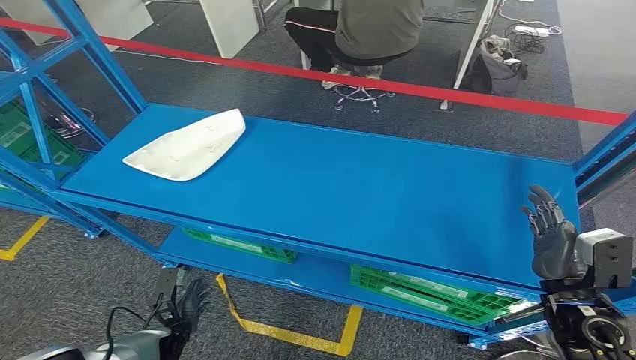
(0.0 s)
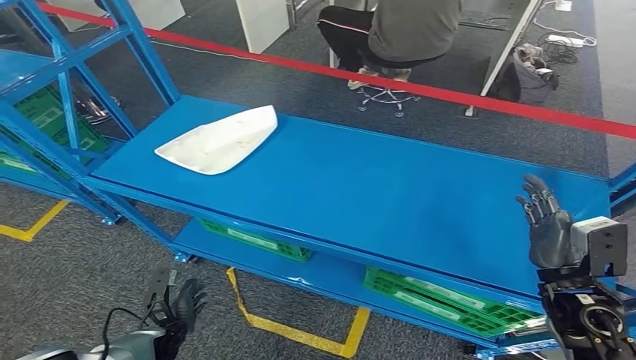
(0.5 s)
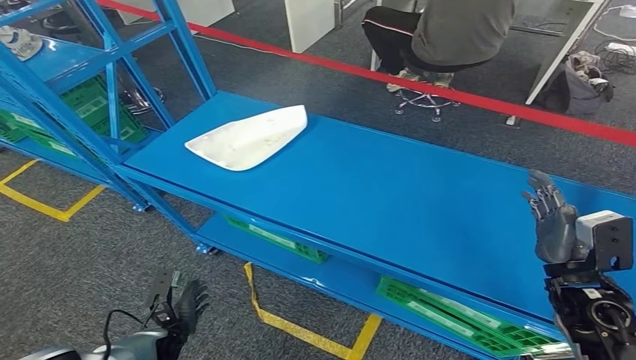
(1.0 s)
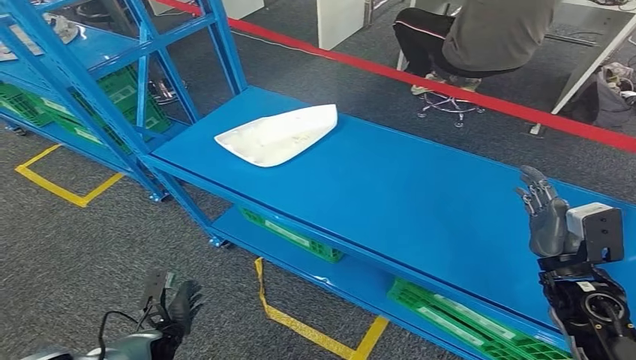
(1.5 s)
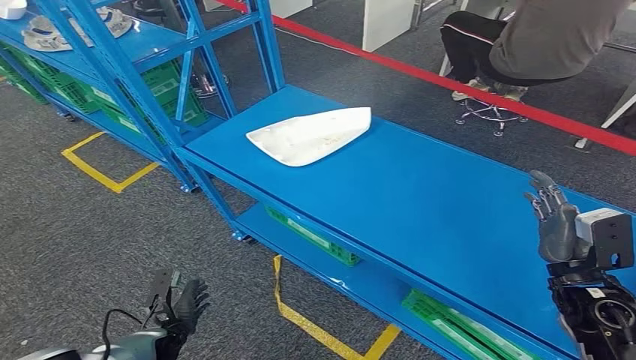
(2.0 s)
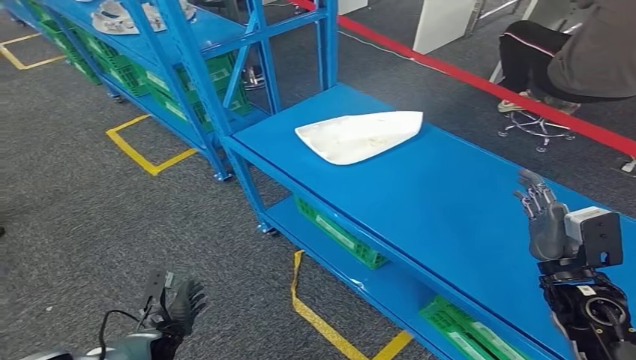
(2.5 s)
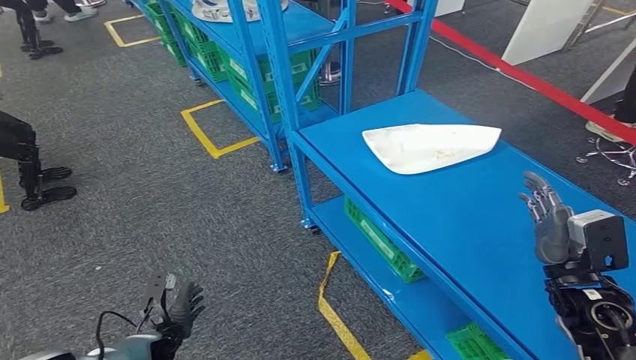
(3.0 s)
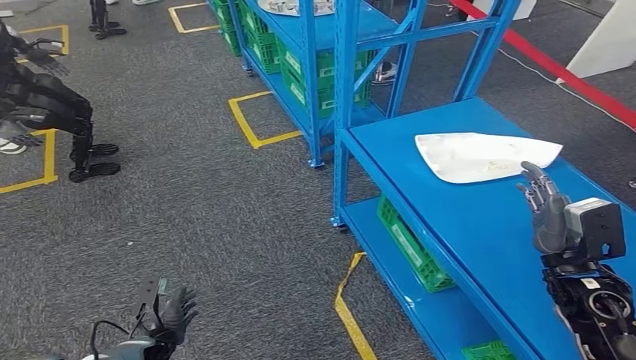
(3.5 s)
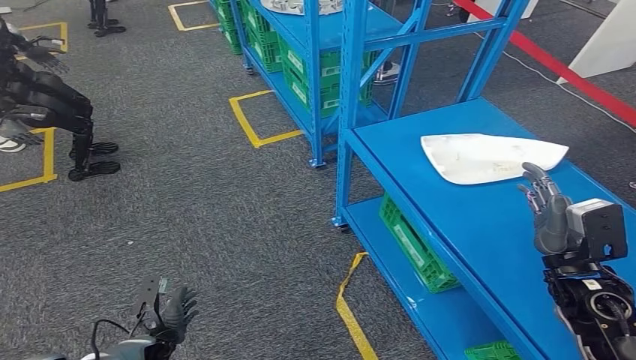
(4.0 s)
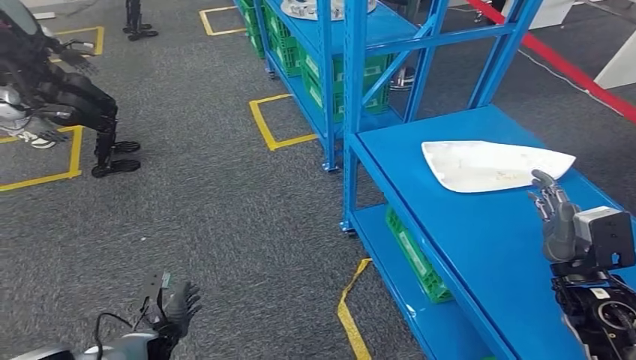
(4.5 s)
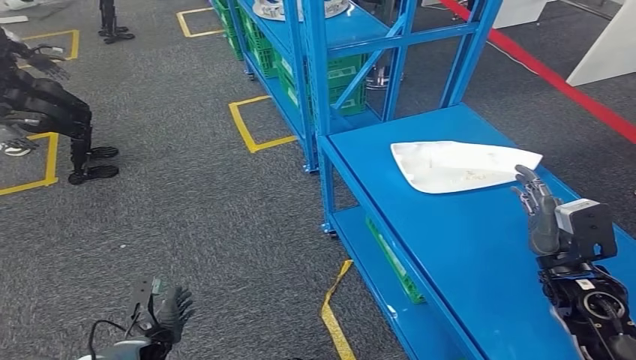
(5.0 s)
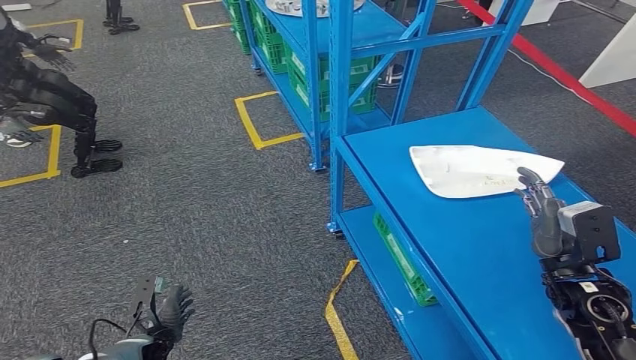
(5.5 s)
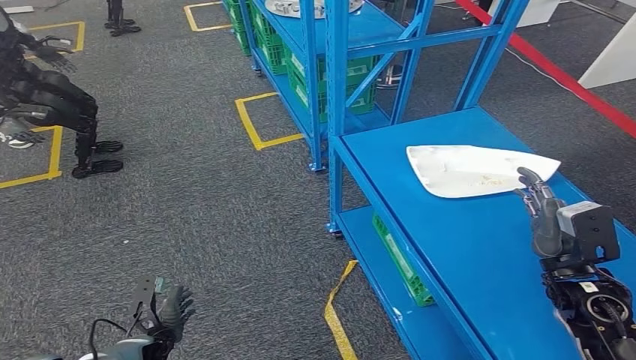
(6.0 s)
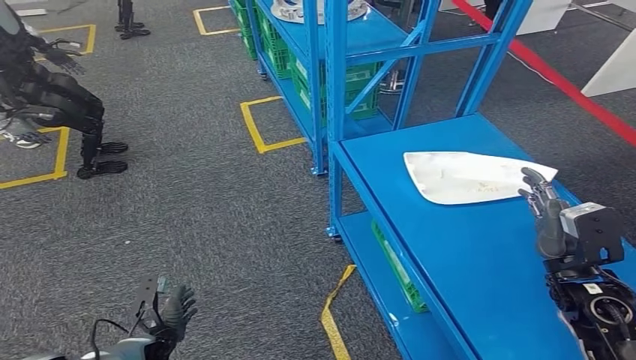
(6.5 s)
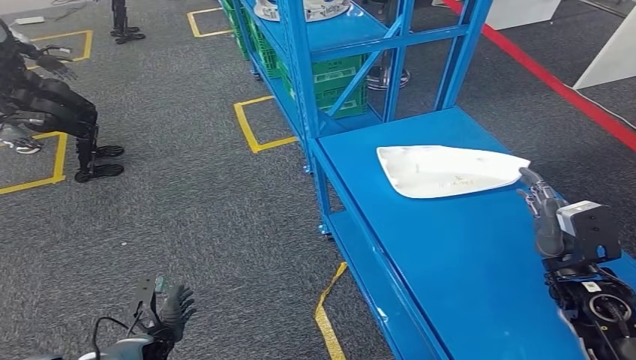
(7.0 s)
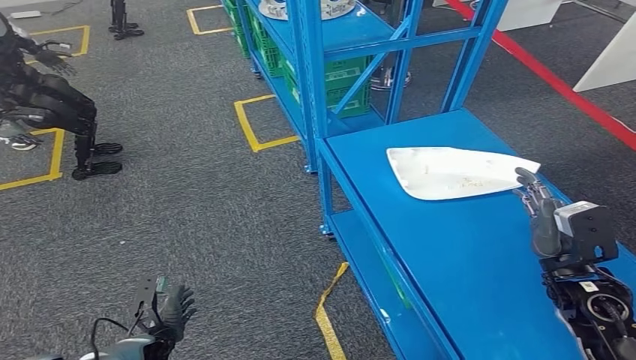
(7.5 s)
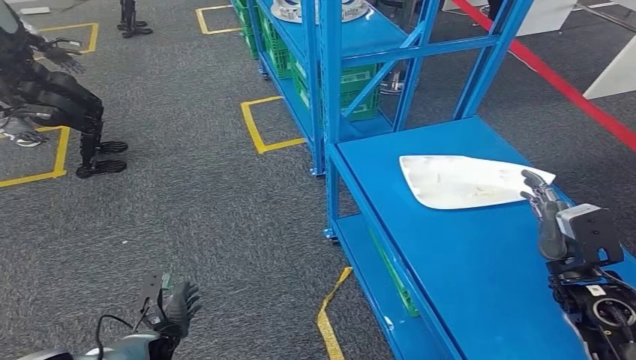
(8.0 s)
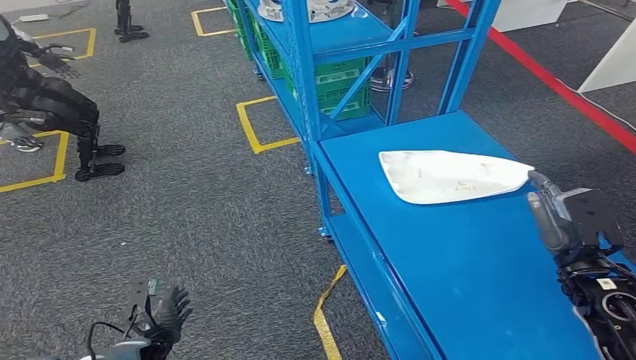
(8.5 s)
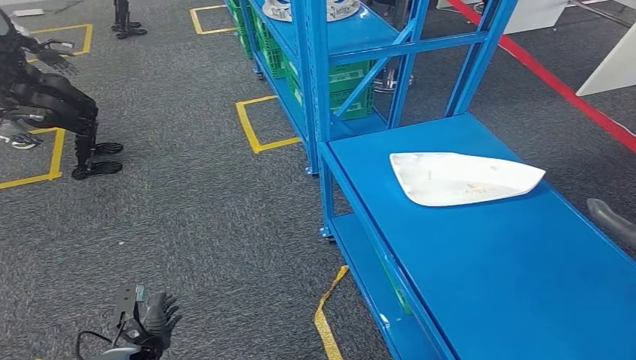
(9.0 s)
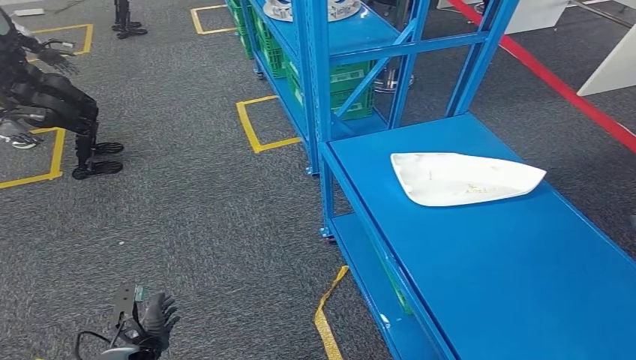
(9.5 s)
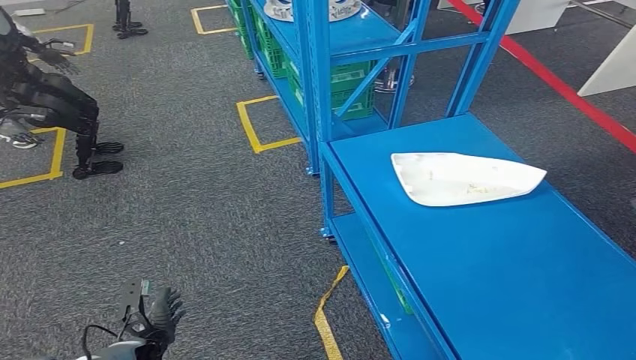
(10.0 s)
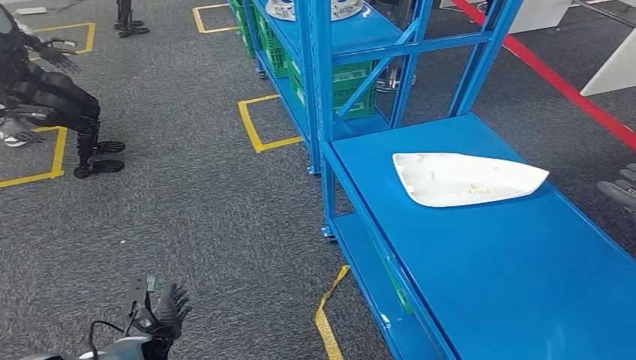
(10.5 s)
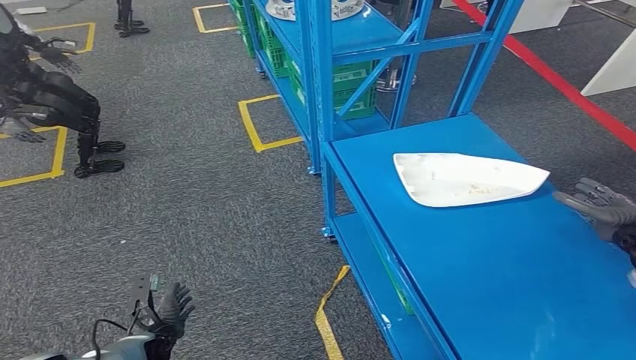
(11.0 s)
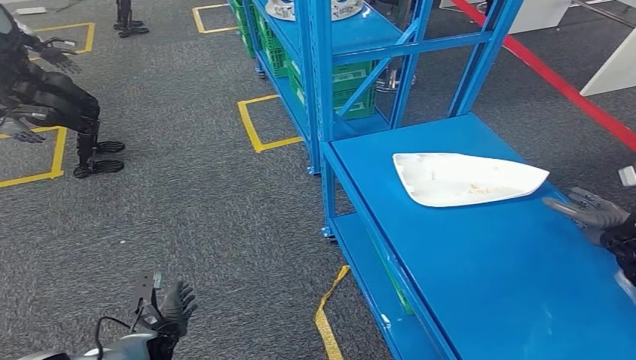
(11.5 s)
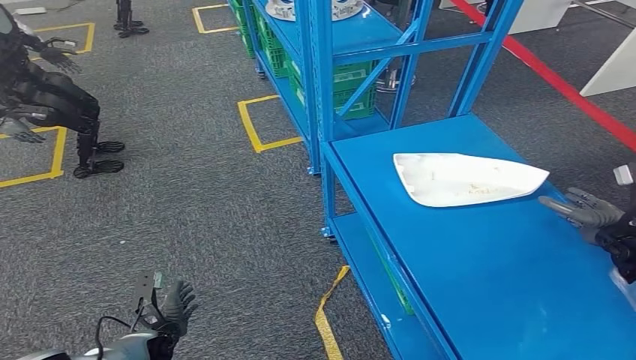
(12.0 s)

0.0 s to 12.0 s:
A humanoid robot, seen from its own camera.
4.0 to 6.0 s: Neither hand changes place.
6.0 to 8.0 s: Both hands stay put.
8.0 to 10.0 s: The right hand shifts about 15 cm to the right.
10.0 to 12.0 s: The right hand goes roughly 10 cm forward.

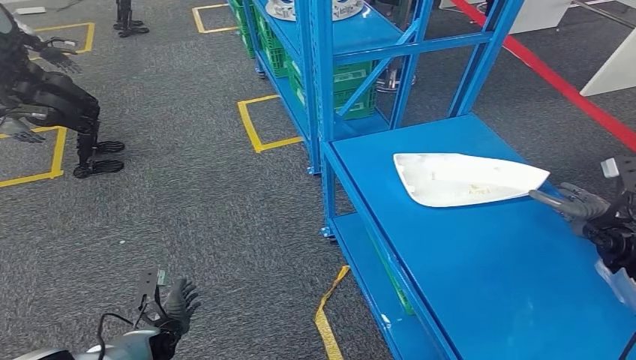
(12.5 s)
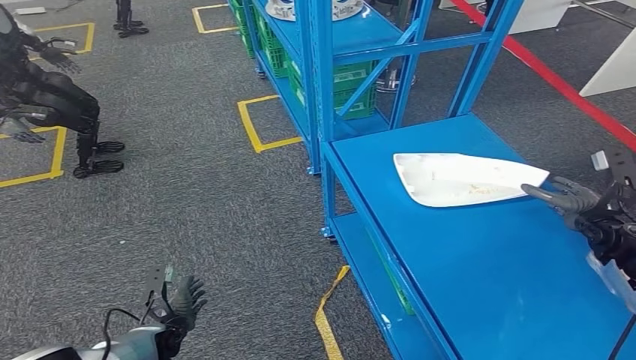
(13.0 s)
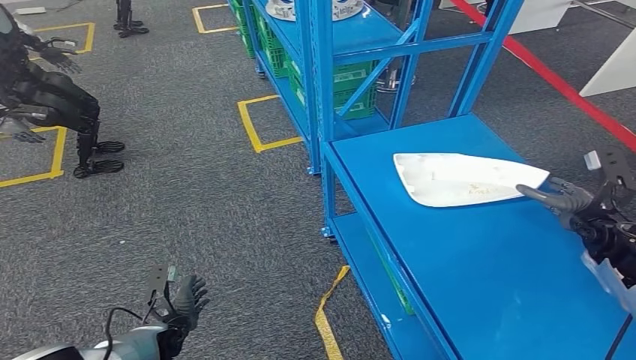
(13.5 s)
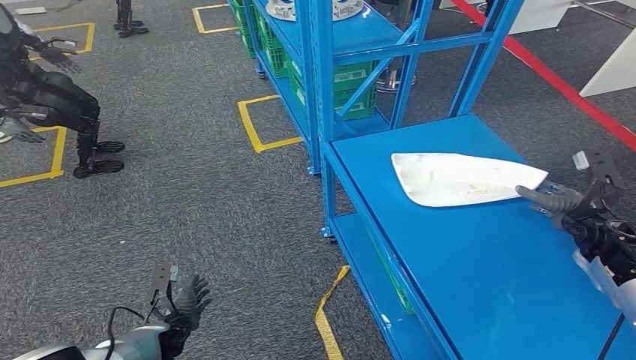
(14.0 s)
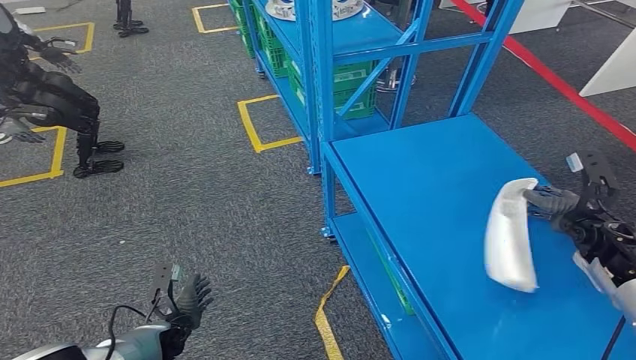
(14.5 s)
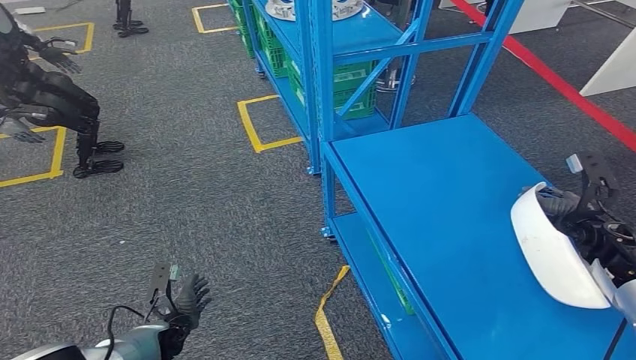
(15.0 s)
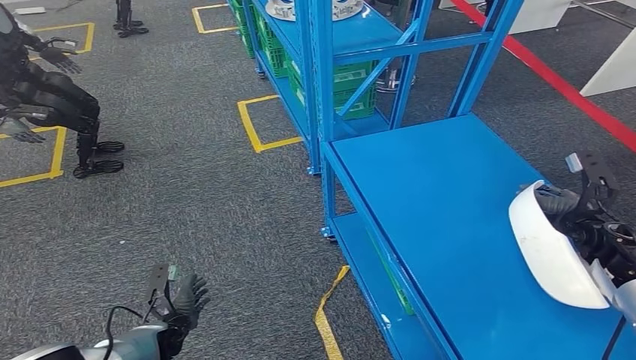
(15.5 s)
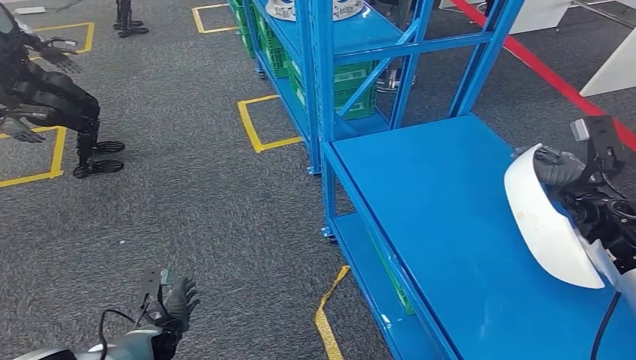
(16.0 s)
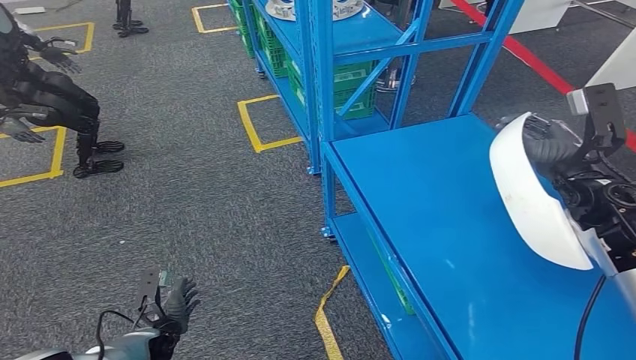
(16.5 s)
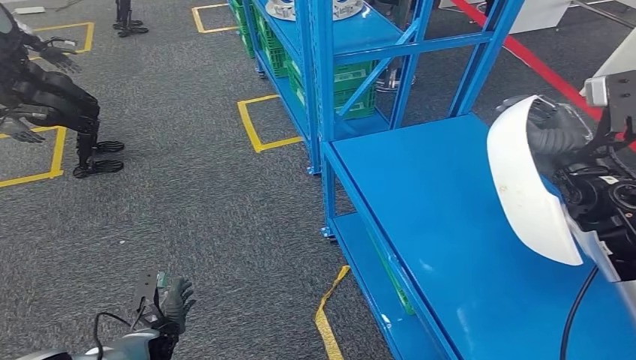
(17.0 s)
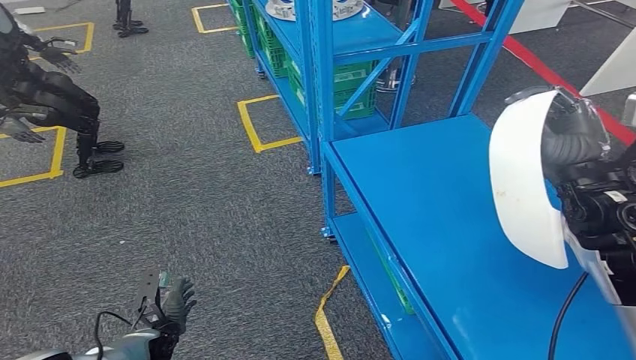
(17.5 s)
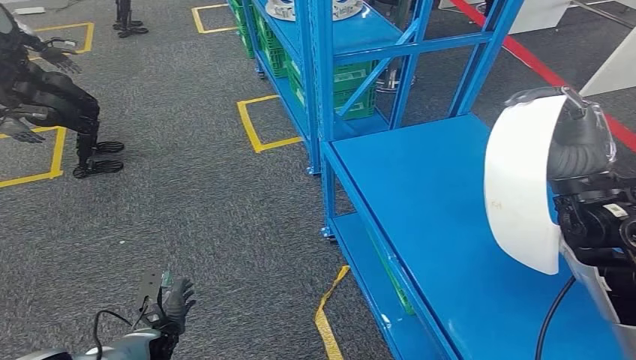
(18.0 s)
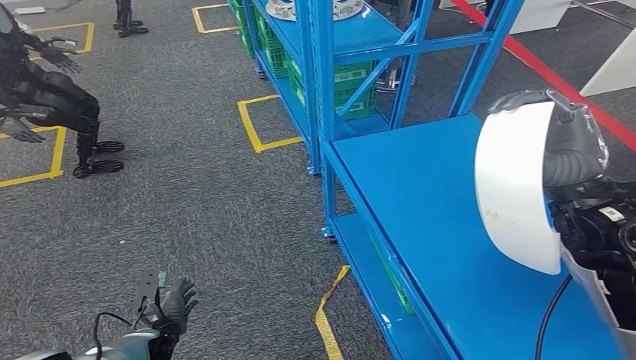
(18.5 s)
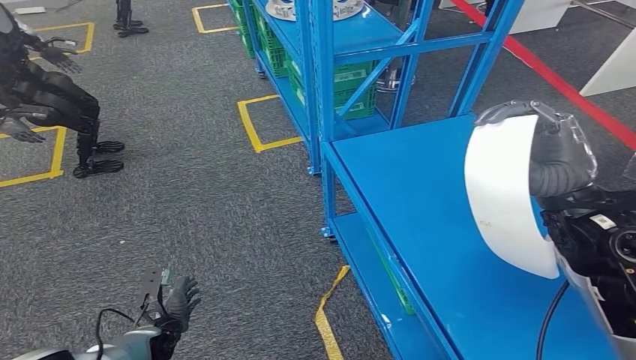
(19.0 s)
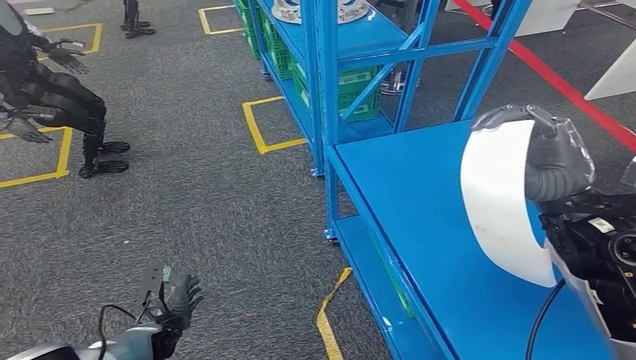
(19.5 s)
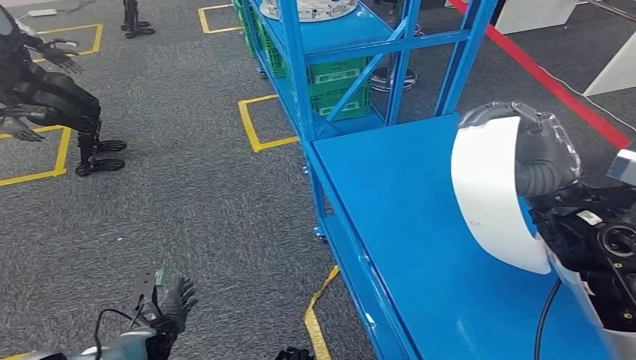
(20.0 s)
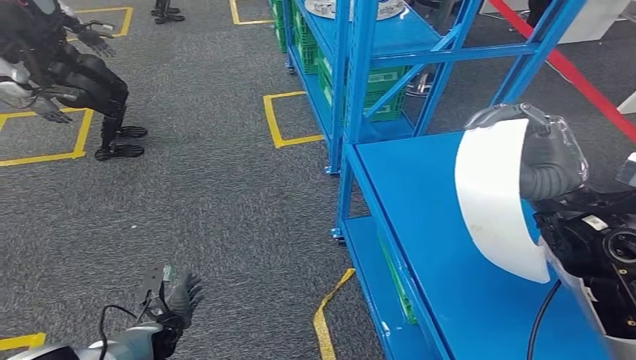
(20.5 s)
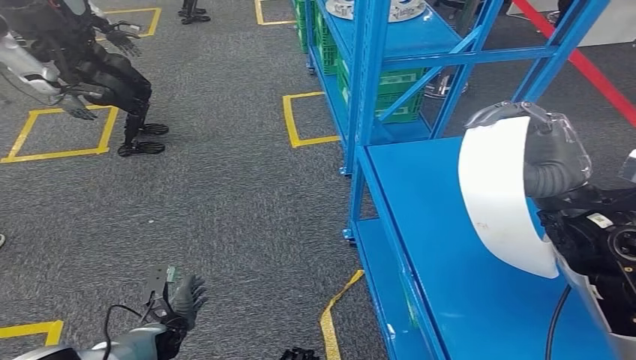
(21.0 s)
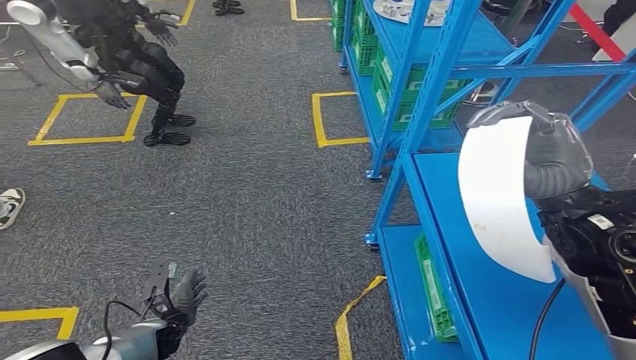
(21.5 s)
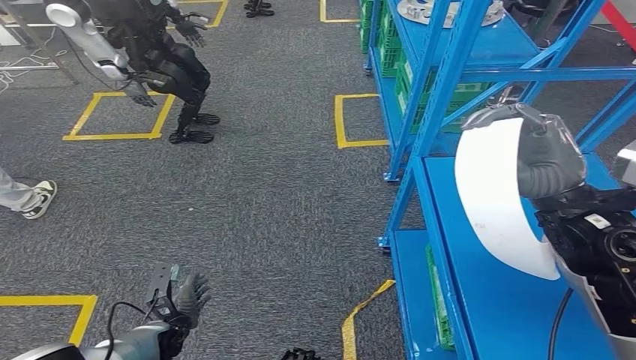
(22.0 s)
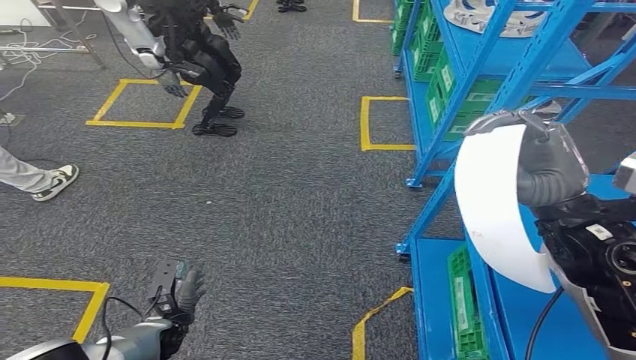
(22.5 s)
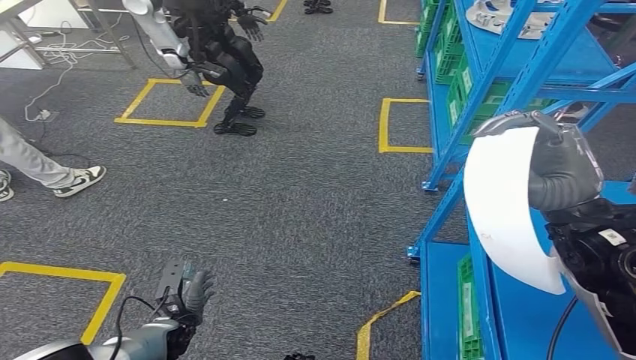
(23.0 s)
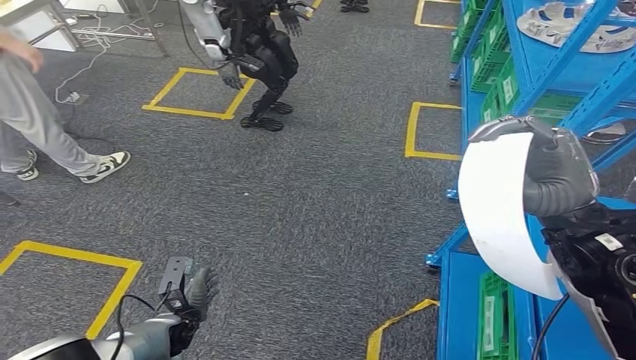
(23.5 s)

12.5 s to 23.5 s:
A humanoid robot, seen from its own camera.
Step, 12.5 to 19.5 s: Pick up the small component from the shelf.
12.5 to 14.5 s: There are only small adjustments of the hands.
14.5 to 16.0 s: The right hand changes place by approximately 5 cm.
16.0 to 18.0 s: The right hand goes approximately 15 cm to the left, backward and upward.
18.0 to 20.0 s: The hands stay close to where they were, moving slightly.
